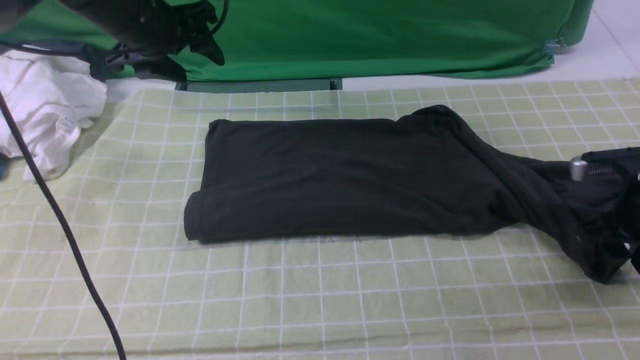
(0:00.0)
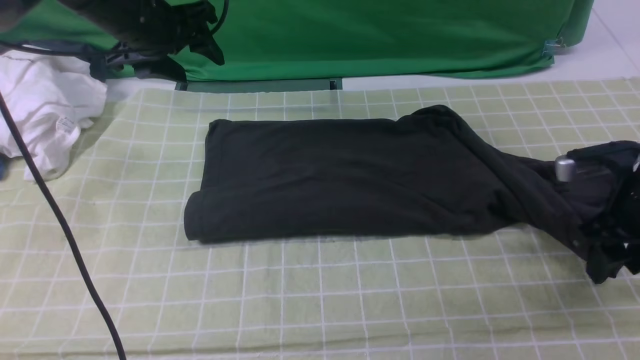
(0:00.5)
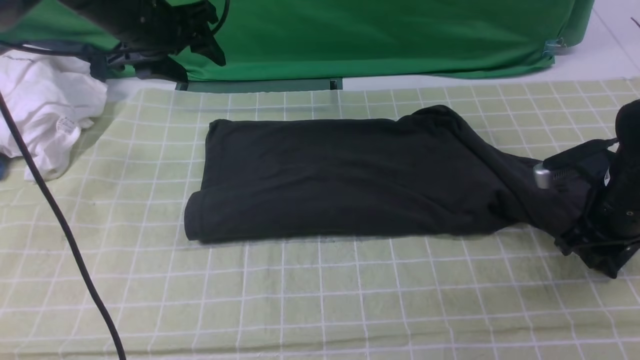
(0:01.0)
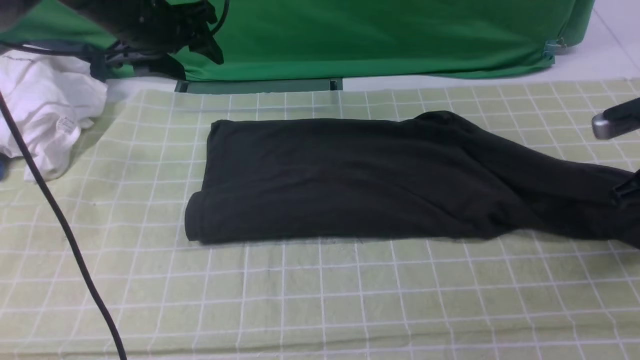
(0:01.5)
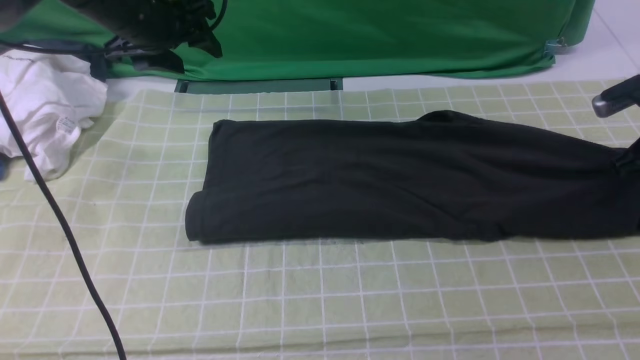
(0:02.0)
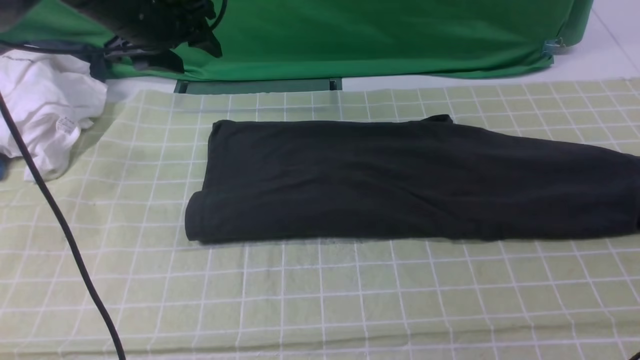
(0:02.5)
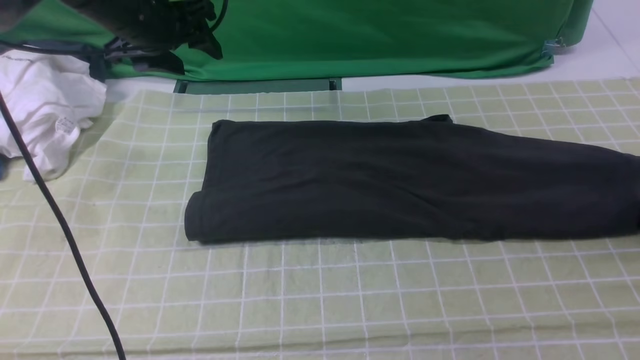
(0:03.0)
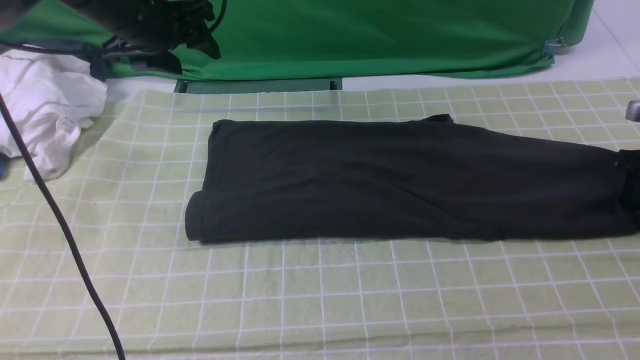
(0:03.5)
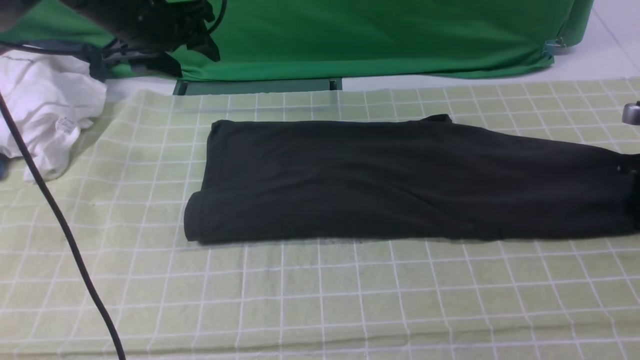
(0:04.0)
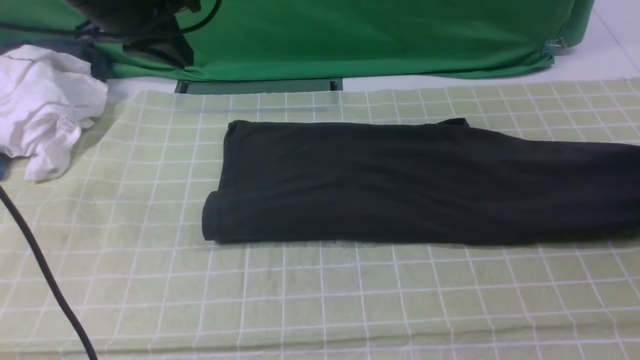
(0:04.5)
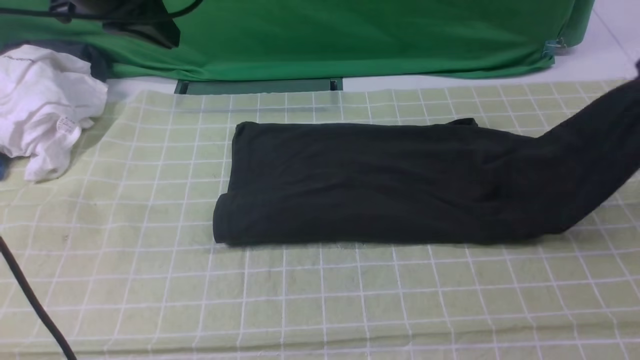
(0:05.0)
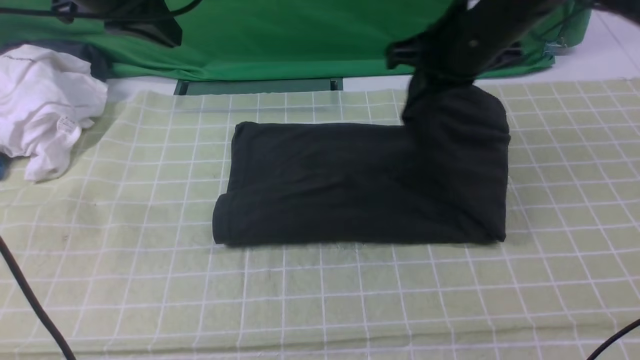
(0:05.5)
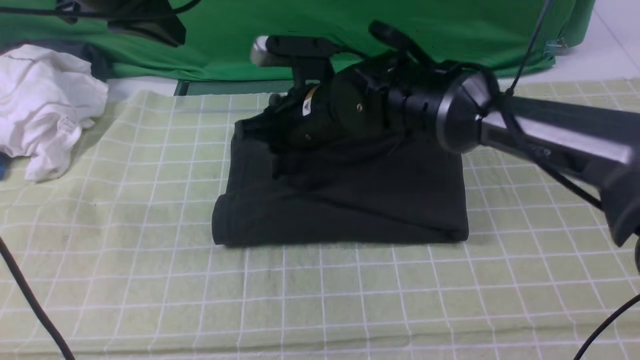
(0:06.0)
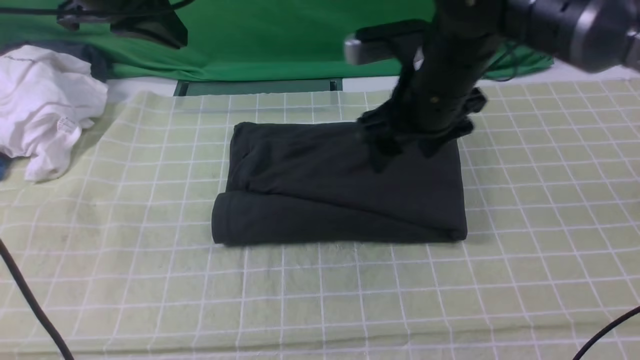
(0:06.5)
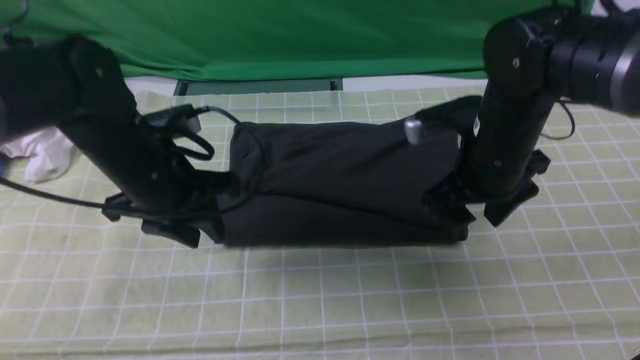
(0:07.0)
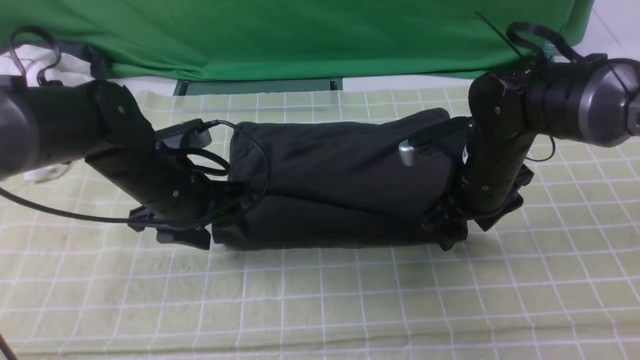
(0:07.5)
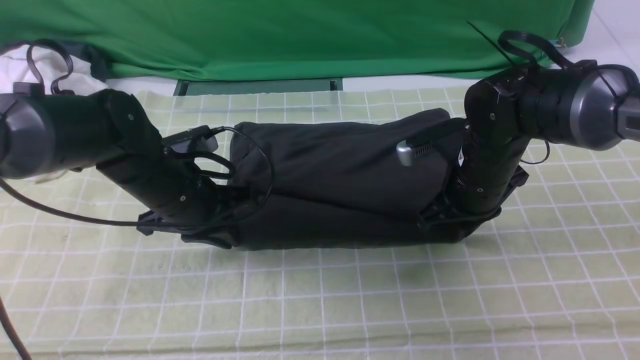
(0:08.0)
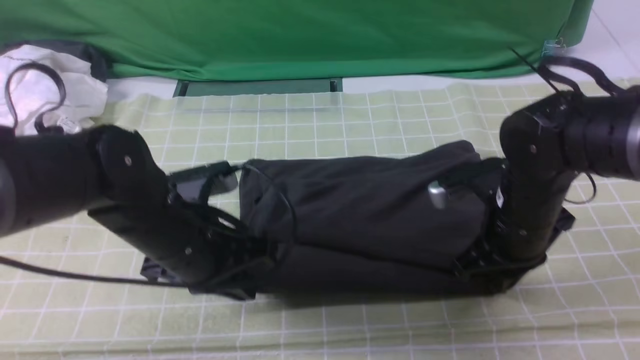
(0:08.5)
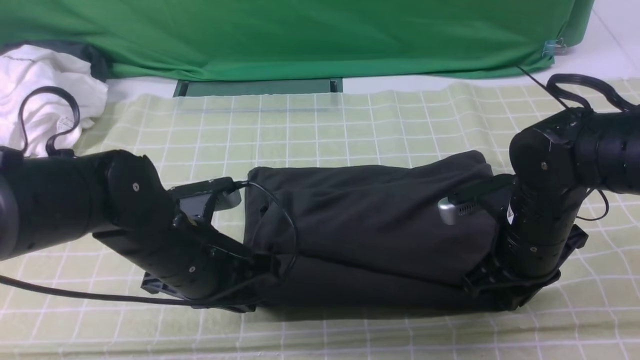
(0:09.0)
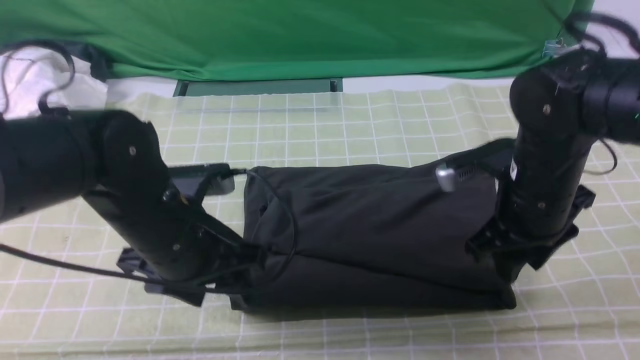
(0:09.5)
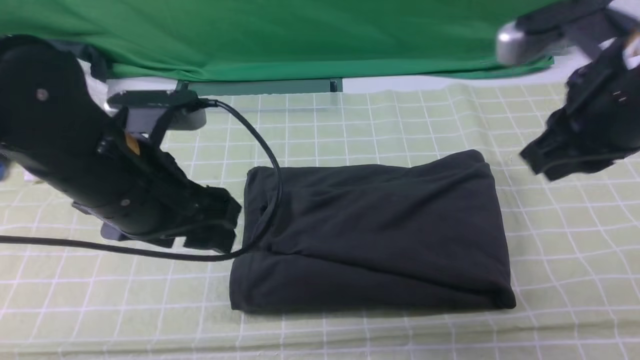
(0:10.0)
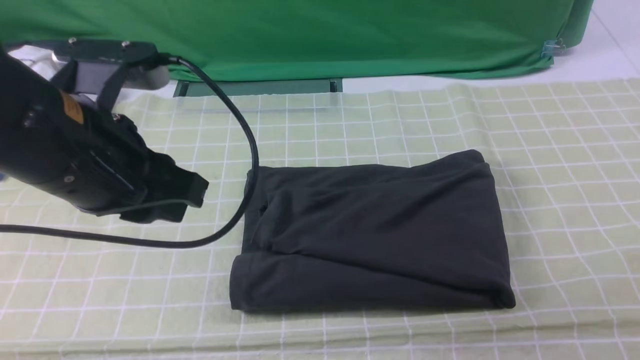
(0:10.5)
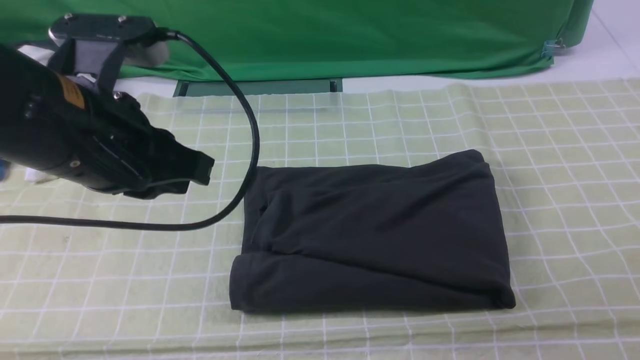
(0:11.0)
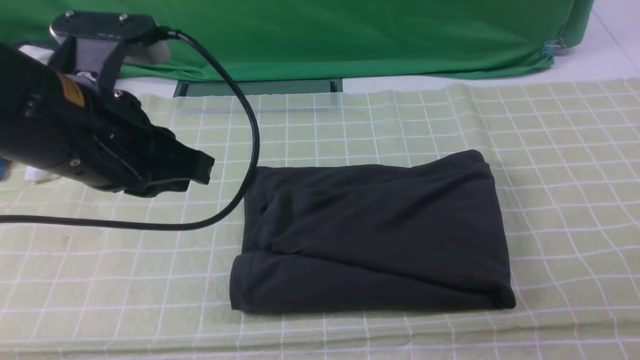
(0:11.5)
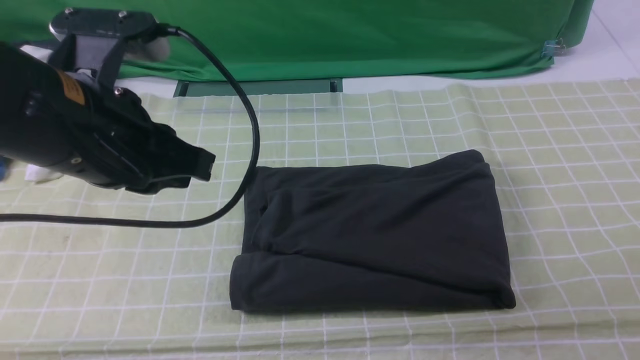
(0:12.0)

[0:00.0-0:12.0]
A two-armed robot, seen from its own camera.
Step, 0:00.0 to 0:02.0: use both arms to drag the lower edge of the fabric forward and fold it over the upper edge.
Step, 0:04.5 to 0:06.0: use the right arm to drag the right edge of the fabric to the left and folds it over the left edge.
0:00.0 to 0:02.0: The right gripper heads forward and to the right, covering some 10 cm, and closes up.
0:02.0 to 0:04.0: The right gripper changes place by approximately 5 cm, and opens, then closes again.
0:04.0 to 0:06.0: The right gripper moves to the left, roughly 40 cm, while the left gripper goes about 10 cm upward and backward, and closes up.
0:06.0 to 0:08.0: The right gripper shifts roughly 15 cm to the right, and opens, then closes once more; the left gripper goes about 20 cm downward, and opens, then closes again.
0:08.0 to 0:10.0: The left gripper travels upward and backward by about 15 cm, and opens, while the right gripper goes roughly 20 cm upward and backward.
0:10.0 to 0:12.0: The right gripper moves backward and to the right, roughly 20 cm; the left gripper shifts roughly 5 cm upward, and closes up.

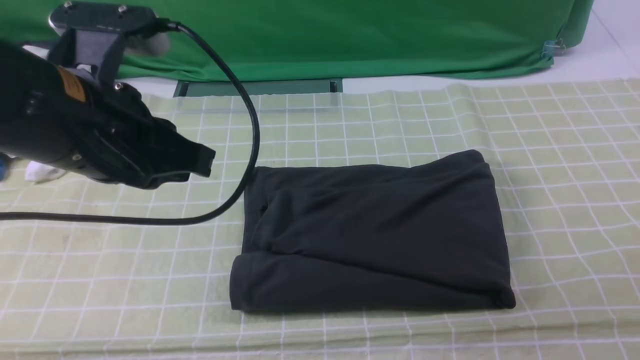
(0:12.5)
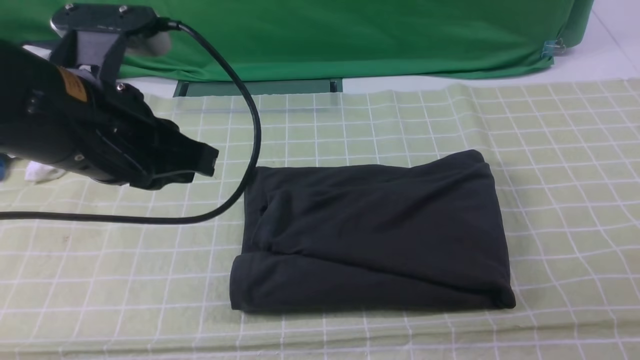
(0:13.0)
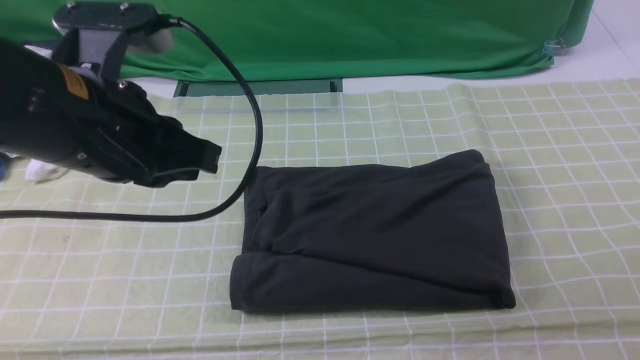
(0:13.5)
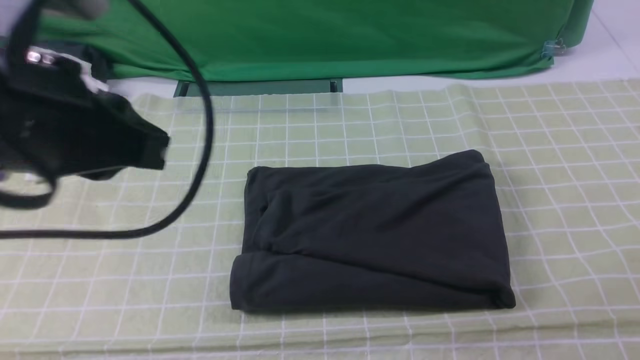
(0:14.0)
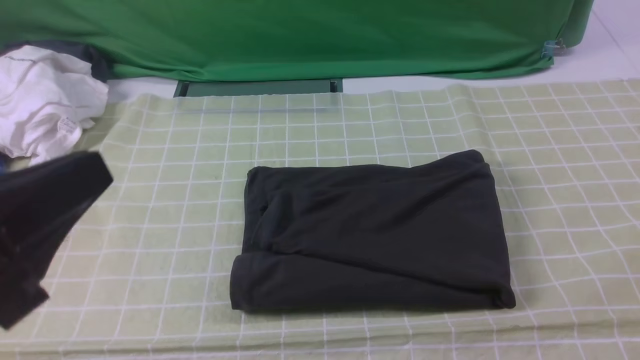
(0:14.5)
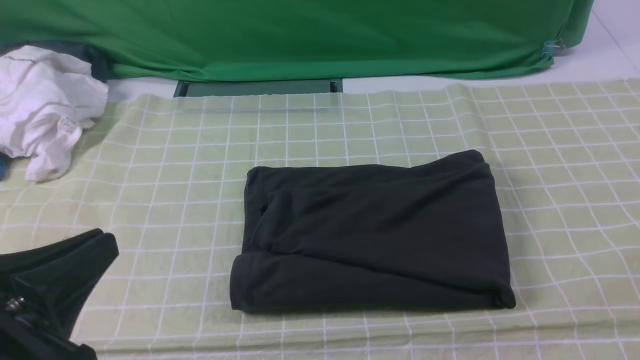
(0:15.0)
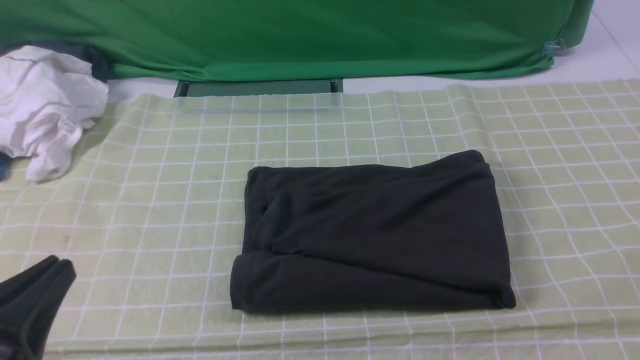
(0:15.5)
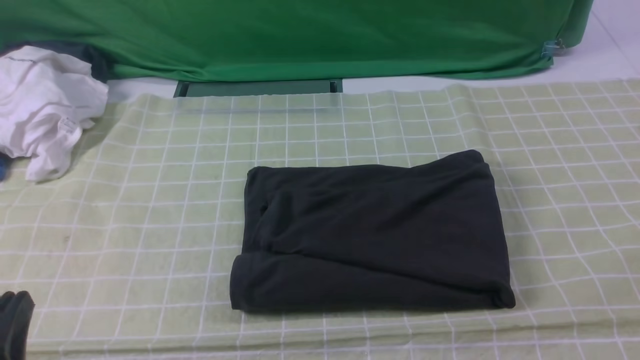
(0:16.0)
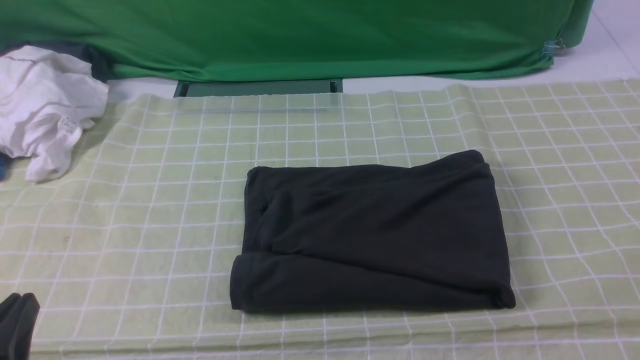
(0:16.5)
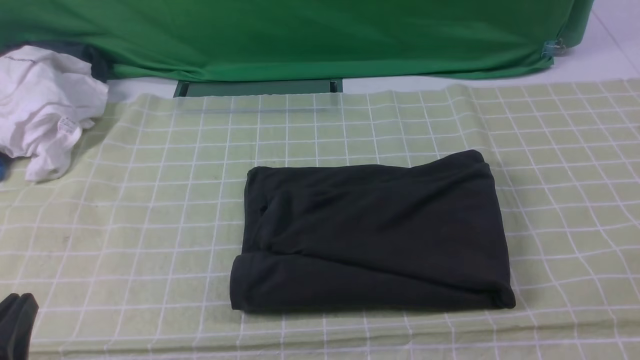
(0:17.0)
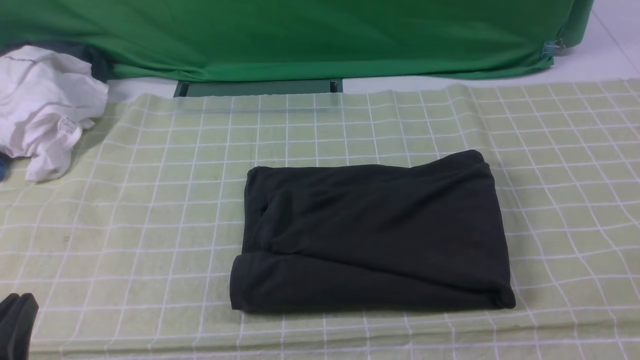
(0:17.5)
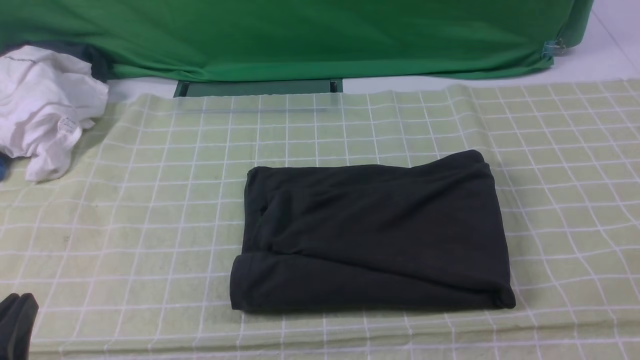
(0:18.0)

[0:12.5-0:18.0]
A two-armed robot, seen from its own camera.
0:12.5 to 0:14.5: The left gripper is displaced backward by some 15 cm; the right gripper goes some 10 cm downward.
0:14.5 to 0:16.0: The left gripper moves downward, some 15 cm.
0:16.0 to 0:18.0: Both grippers stay about where they are.
